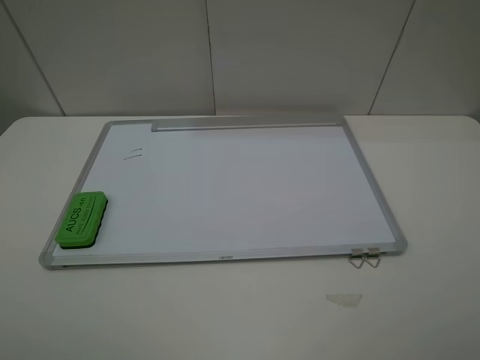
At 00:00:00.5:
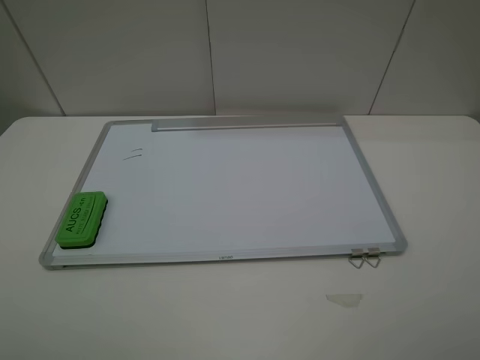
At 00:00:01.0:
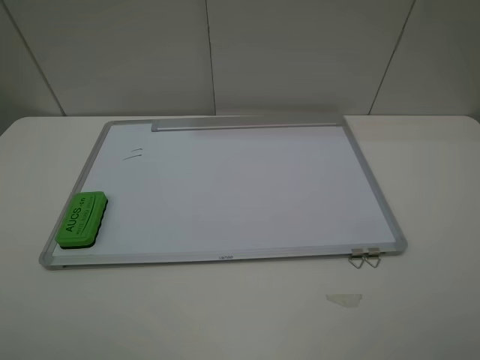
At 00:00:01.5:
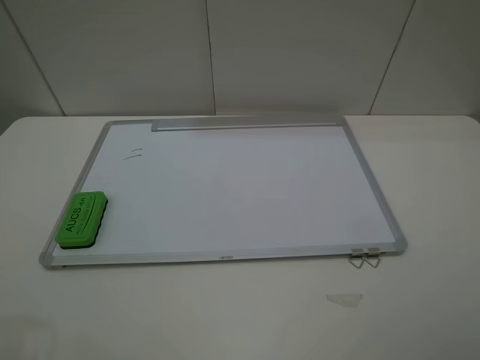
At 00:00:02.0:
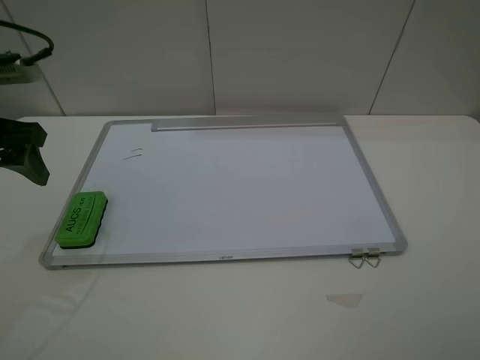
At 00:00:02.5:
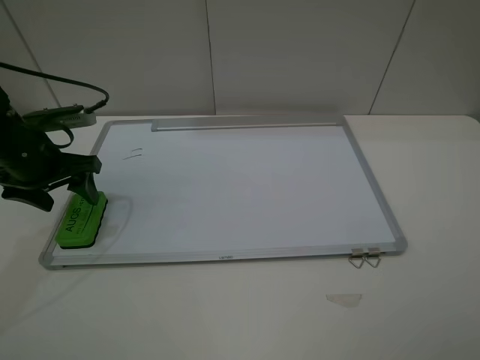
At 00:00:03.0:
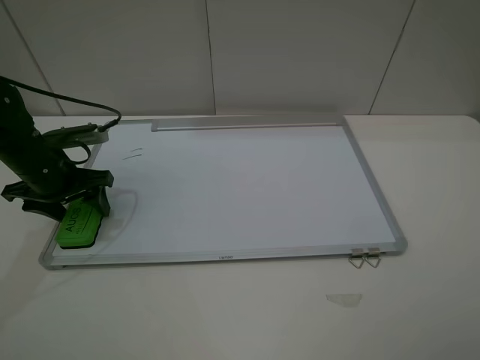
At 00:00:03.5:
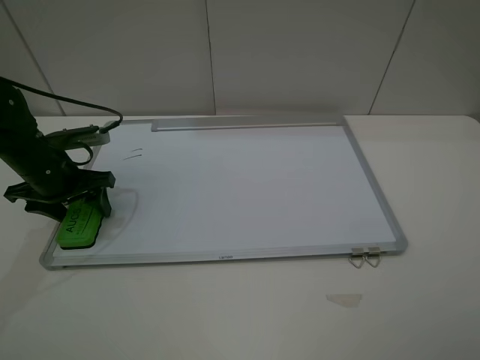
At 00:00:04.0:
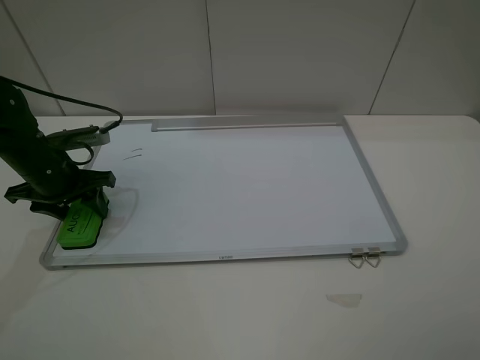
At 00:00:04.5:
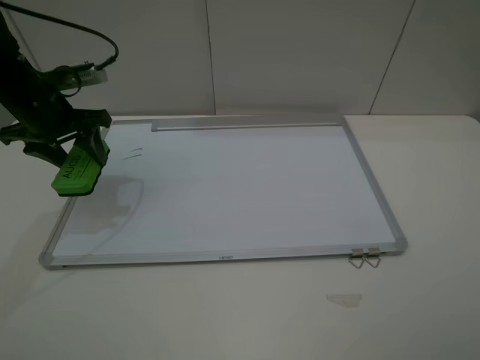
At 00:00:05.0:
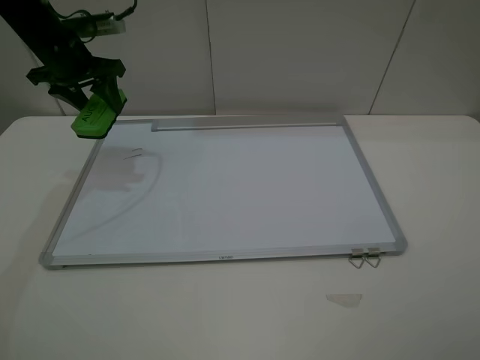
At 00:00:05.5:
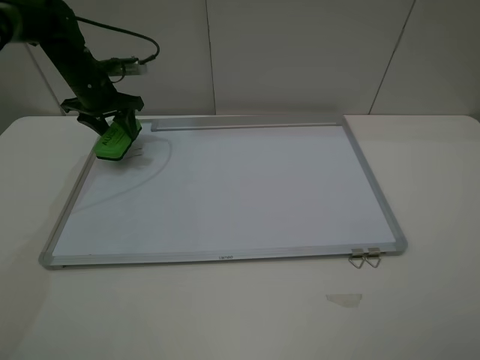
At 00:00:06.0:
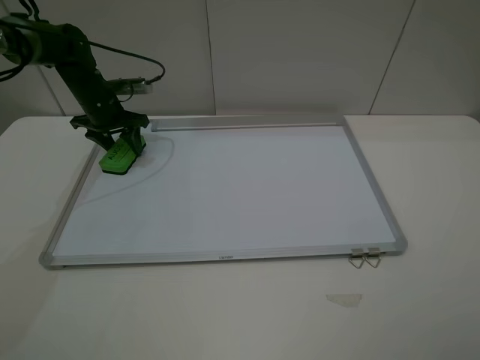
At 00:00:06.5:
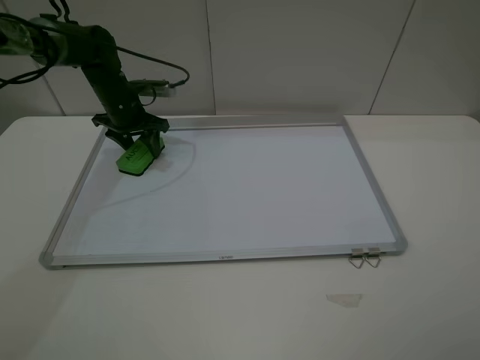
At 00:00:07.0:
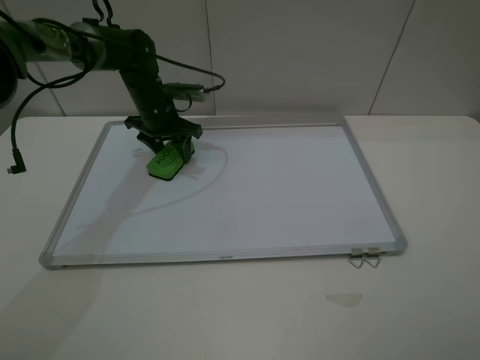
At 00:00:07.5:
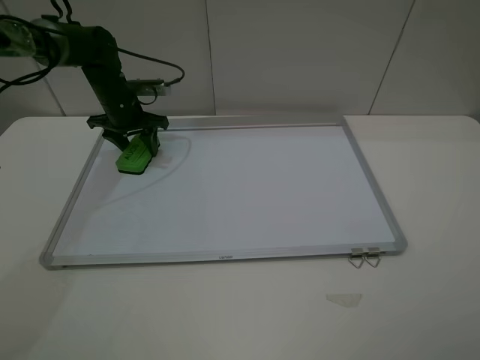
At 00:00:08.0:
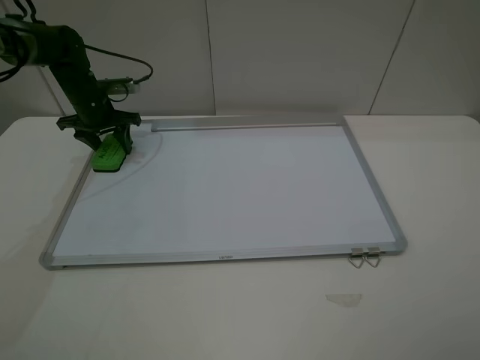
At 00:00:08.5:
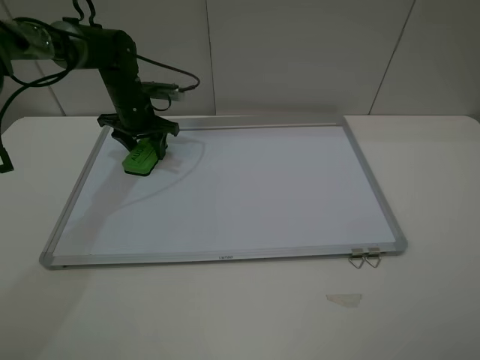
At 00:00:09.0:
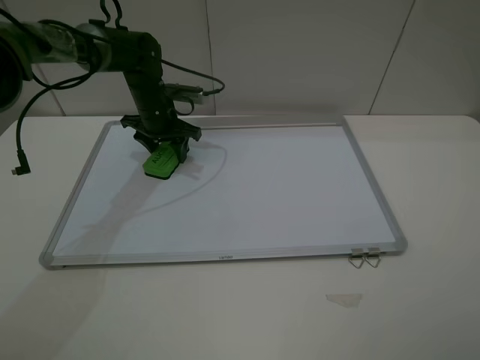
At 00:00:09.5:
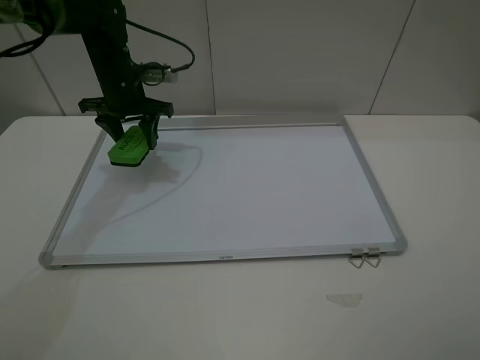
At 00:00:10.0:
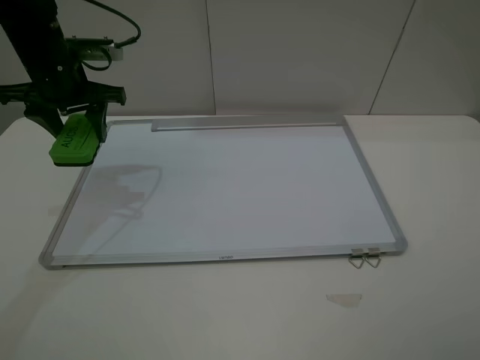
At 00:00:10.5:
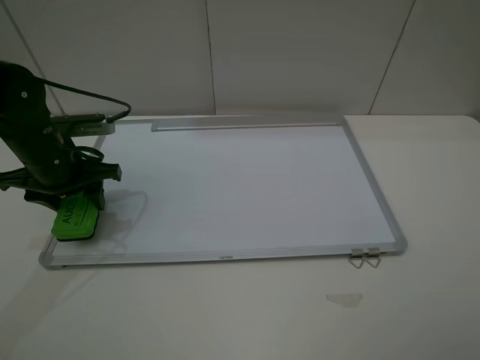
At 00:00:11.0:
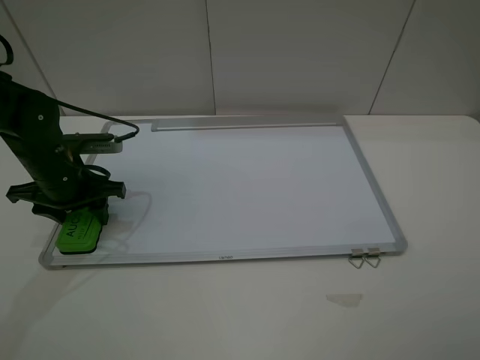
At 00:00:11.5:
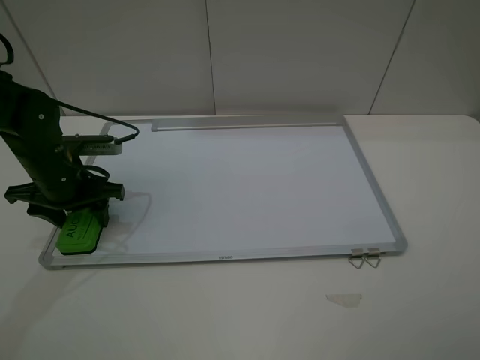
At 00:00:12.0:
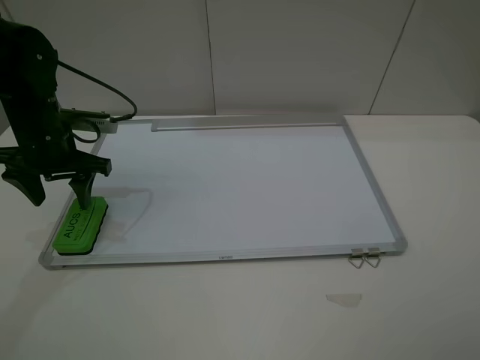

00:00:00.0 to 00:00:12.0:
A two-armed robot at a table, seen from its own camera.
Step, 00:00:00.0 to 00:00:04.0: Grasp the eraser with the left gripper.
Step, 00:00:04.5 to 00:00:09.0: Grasp the eraser and wipe the blackboard with the left gripper.
Step, 00:00:09.5 to 00:00:11.5: Place the eraser with the left gripper.
00:00:00.0 to 00:00:02.0: The left gripper is displaced forward by approximately 25 cm.
00:00:02.0 to 00:00:04.0: The left gripper shifts approximately 15 cm downward and forward, and closes.
00:00:04.0 to 00:00:06.0: The left gripper travels forward by some 20 cm.
00:00:06.0 to 00:00:08.0: The left gripper reaches roughly 10 cm to the right, then returns.
00:00:08.0 to 00:00:10.0: The left gripper is displaced upward and backward by approximately 15 cm.
00:00:10.0 to 00:00:12.0: The left gripper heads downward, covering roughly 5 cm, and opens.

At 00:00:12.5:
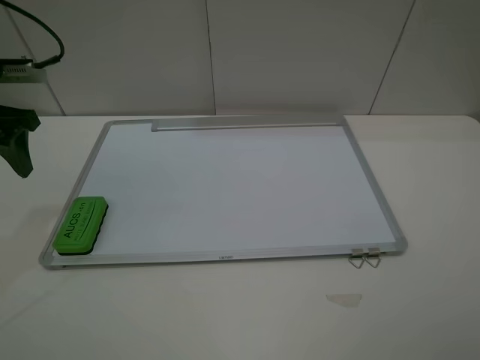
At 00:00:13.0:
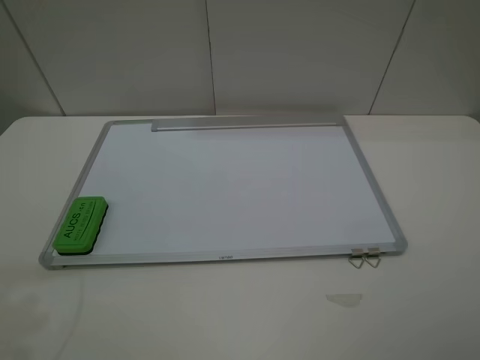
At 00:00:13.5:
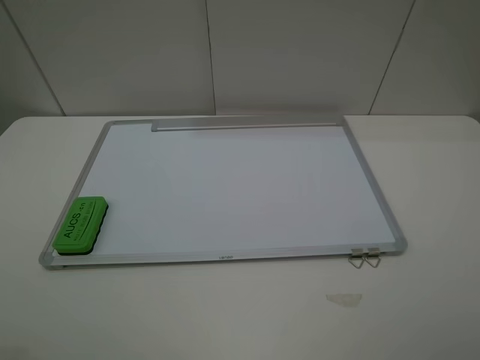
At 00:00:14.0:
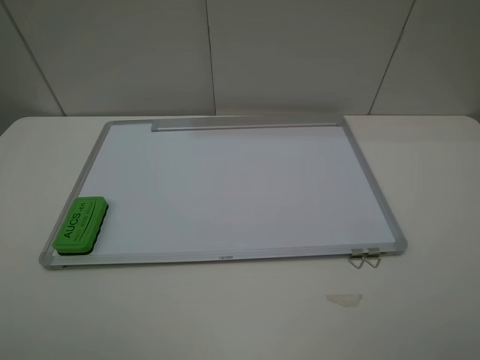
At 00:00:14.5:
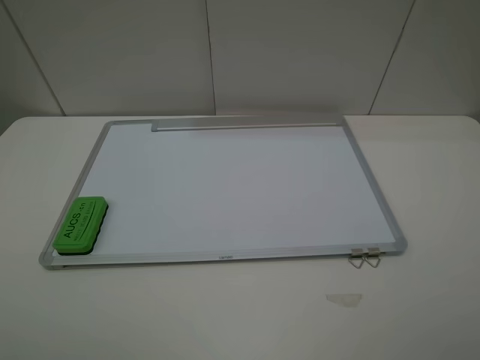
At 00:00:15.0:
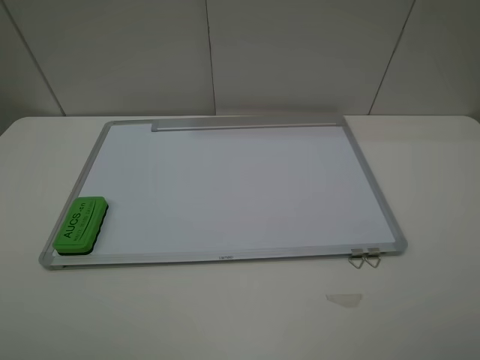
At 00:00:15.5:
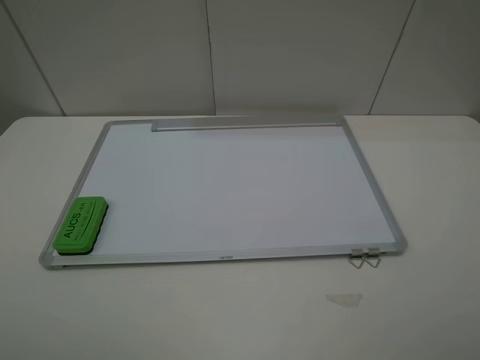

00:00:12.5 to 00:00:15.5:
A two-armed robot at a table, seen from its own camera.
00:00:12.5 to 00:00:14.0: The left gripper heads backward, covering some 25 cm.
